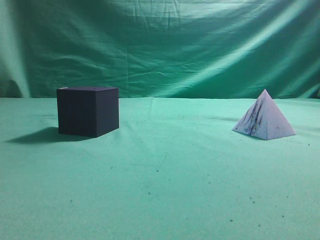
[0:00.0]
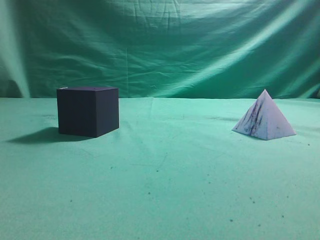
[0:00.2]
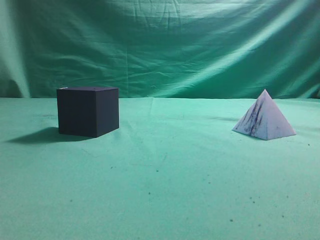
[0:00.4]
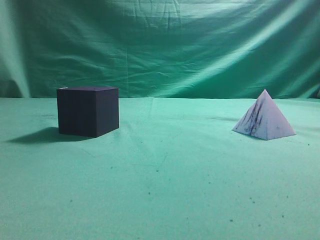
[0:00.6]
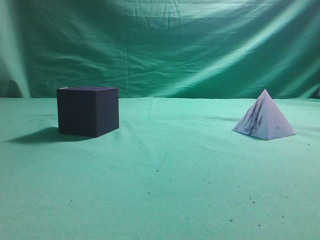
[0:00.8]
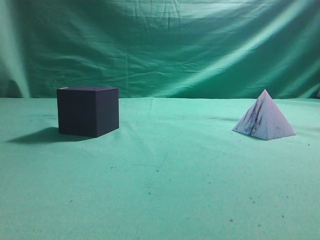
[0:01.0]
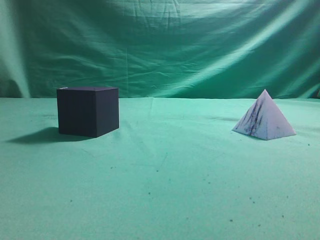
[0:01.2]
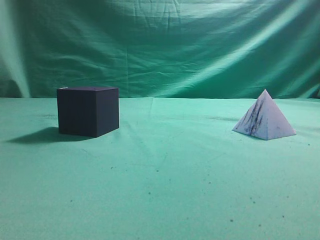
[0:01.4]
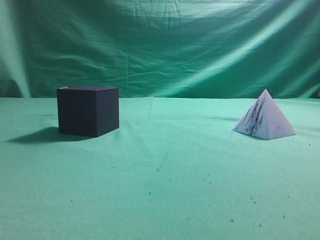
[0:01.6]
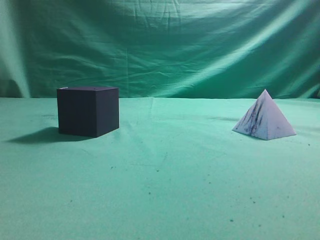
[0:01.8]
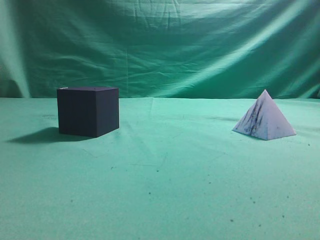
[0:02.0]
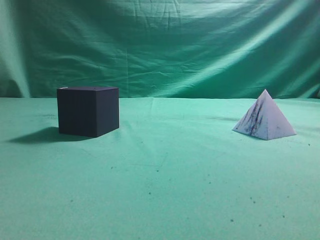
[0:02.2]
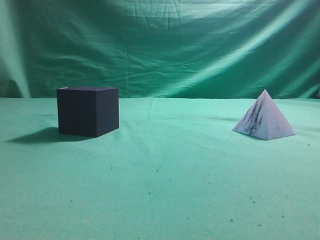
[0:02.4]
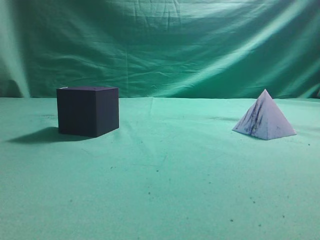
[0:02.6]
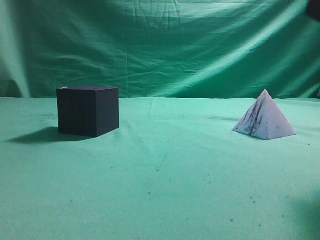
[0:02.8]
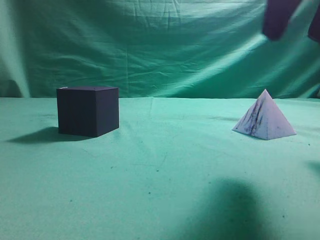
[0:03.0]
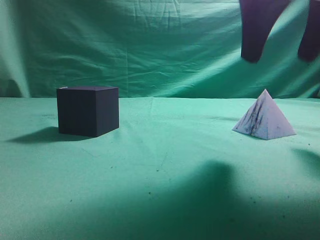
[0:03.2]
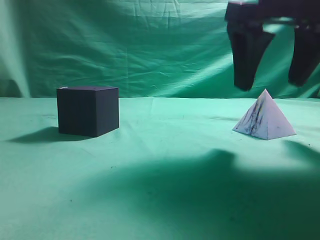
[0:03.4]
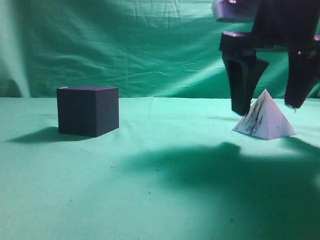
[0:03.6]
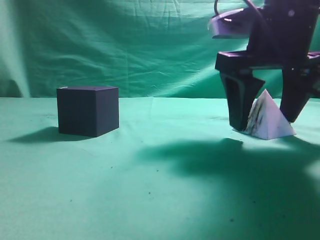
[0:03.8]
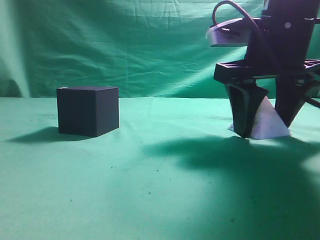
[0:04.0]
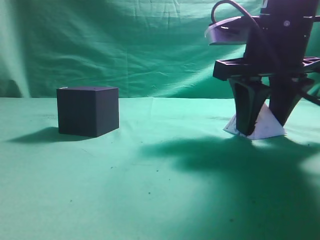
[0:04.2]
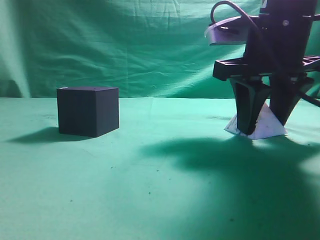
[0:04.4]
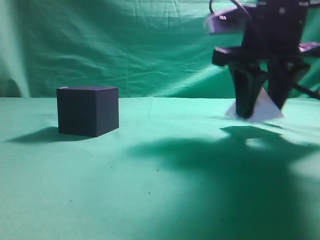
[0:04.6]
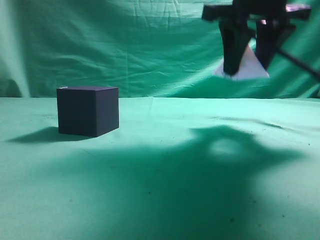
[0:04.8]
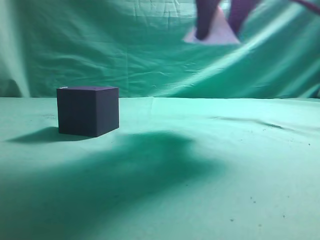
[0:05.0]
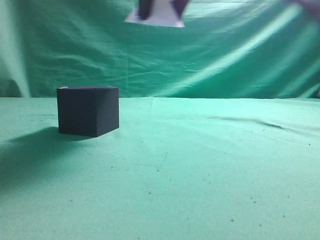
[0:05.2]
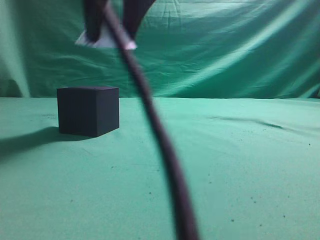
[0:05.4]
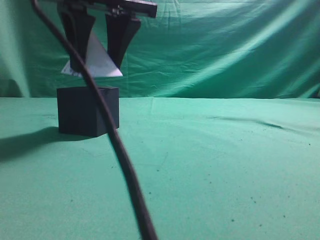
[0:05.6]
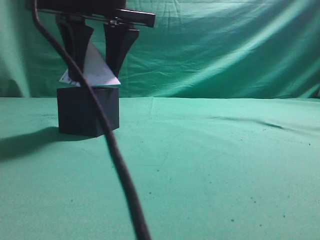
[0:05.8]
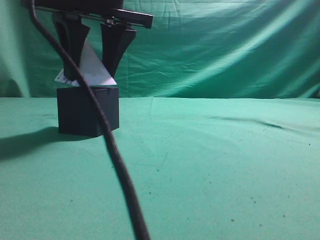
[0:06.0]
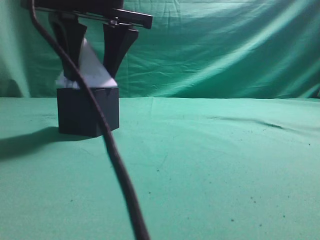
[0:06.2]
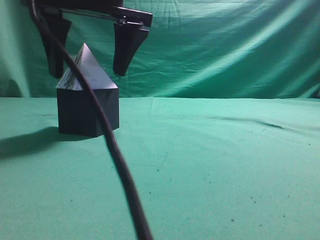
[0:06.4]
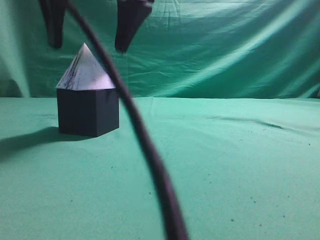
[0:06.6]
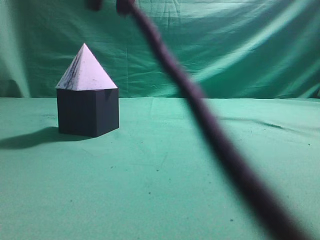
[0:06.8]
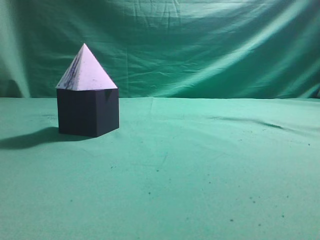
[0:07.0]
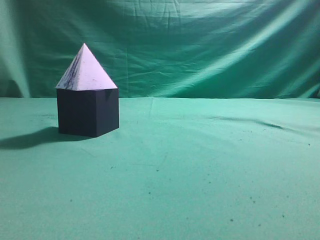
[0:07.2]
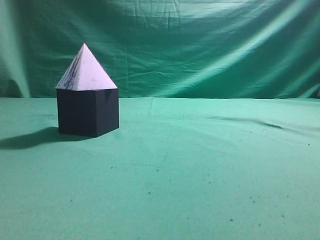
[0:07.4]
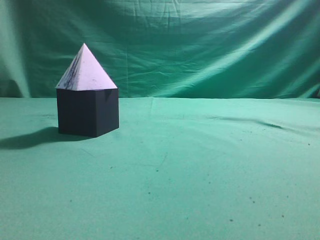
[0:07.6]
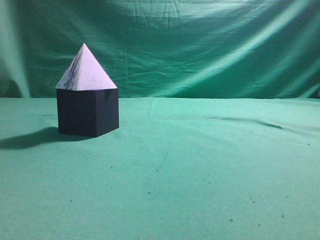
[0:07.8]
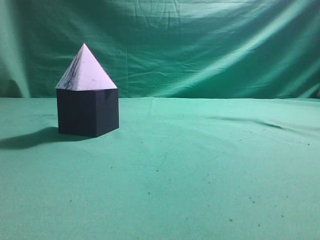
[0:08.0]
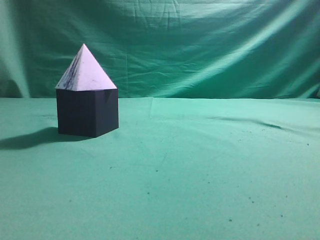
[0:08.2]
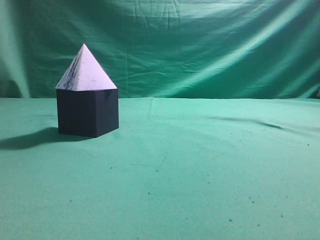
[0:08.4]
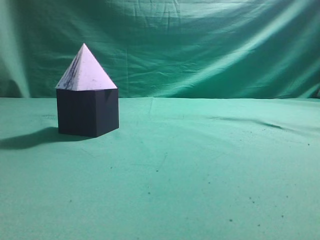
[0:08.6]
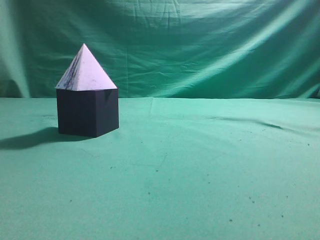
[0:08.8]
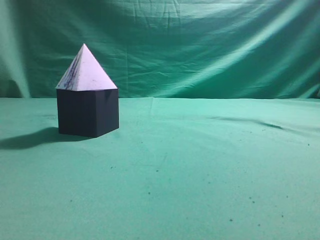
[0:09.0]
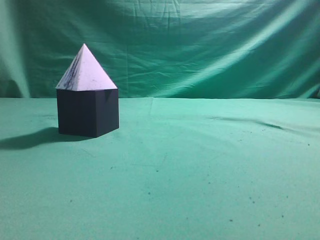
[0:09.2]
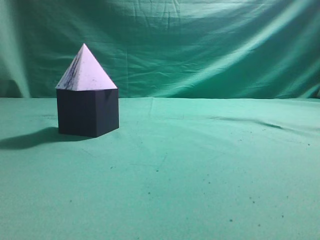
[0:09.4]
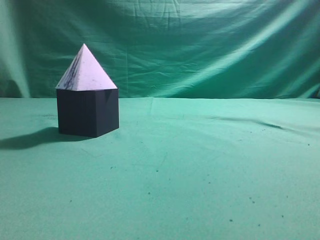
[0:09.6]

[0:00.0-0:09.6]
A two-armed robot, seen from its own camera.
Task of the whole recording: pick up the square pyramid from the table and place it on the cube block.
Step, 0:00.0 to 0:04.8: Grasp the triangular block.
Step, 0:05.0 to 0:06.6: Place the block onto the cube-shaped block.
0:01.6 to 0:03.2: The right gripper goes roughly 25 cm forward and to the left, and opens.
0:03.2 to 0:04.8: The right gripper shifts roughly 5 cm forward, moves roughly 10 cm downward and comes back, and closes up.
0:04.8 to 0:06.4: The right gripper moves to the left, approximately 20 cm, and opens up.
0:06.4 to 0:08.0: The right gripper shifts some 35 cm to the right, upward and backward, and closes.
